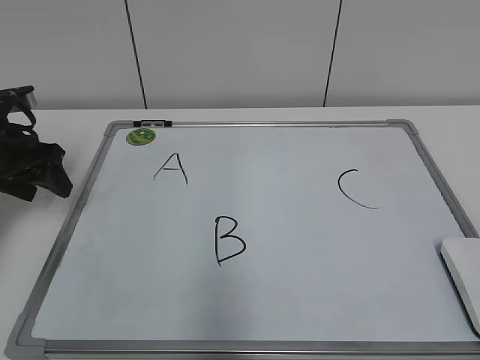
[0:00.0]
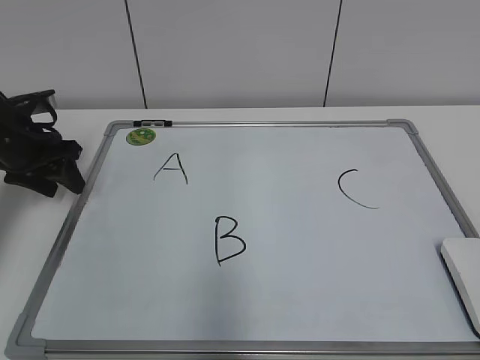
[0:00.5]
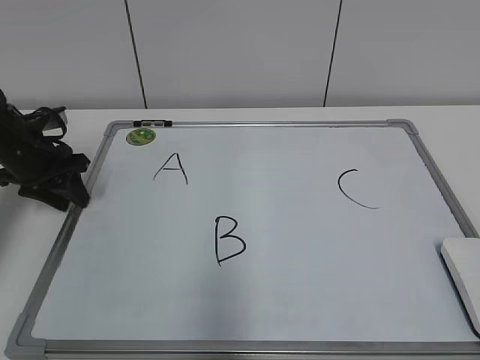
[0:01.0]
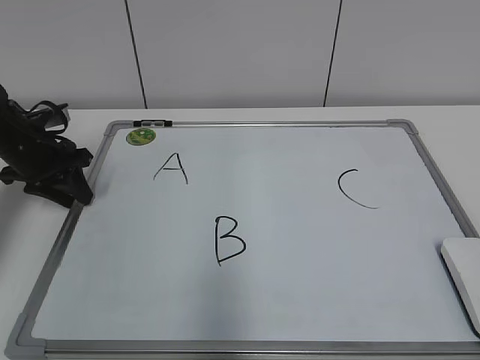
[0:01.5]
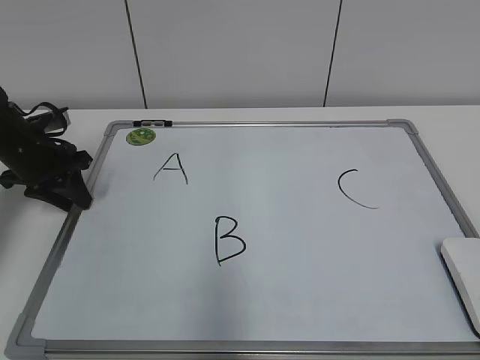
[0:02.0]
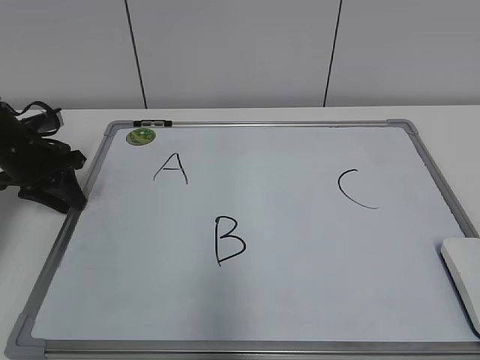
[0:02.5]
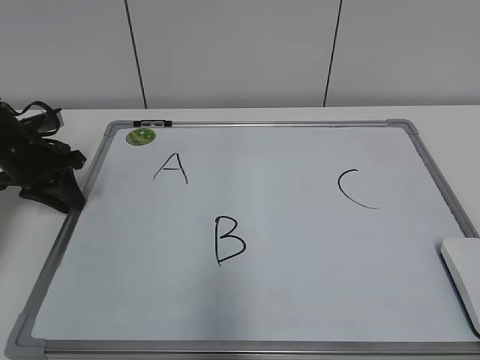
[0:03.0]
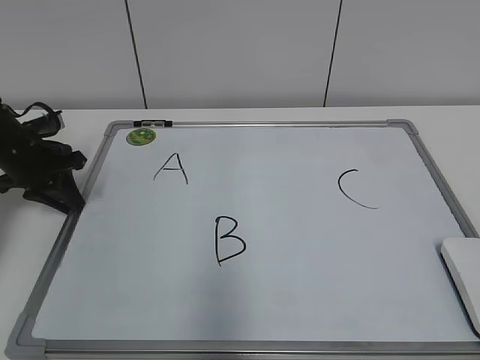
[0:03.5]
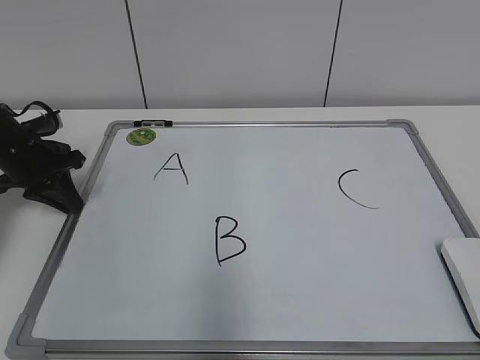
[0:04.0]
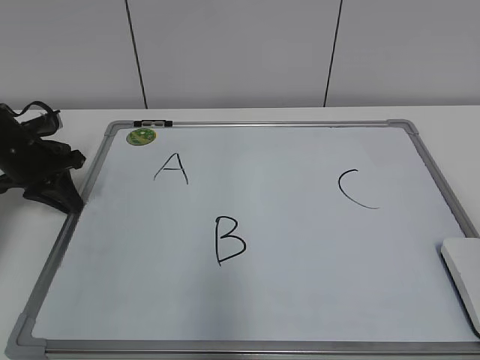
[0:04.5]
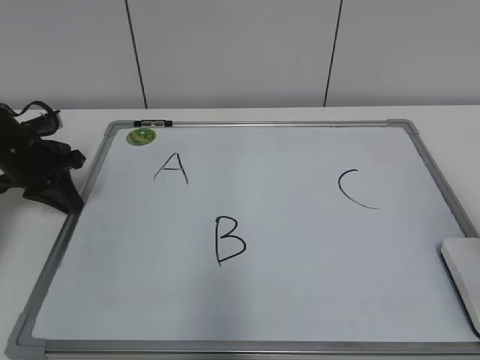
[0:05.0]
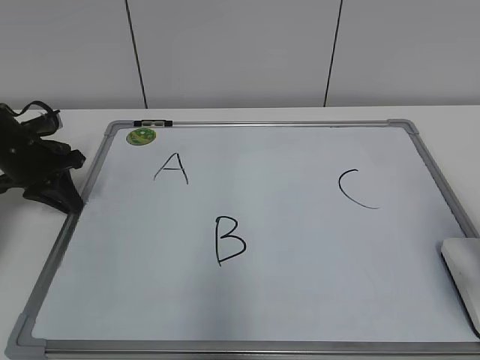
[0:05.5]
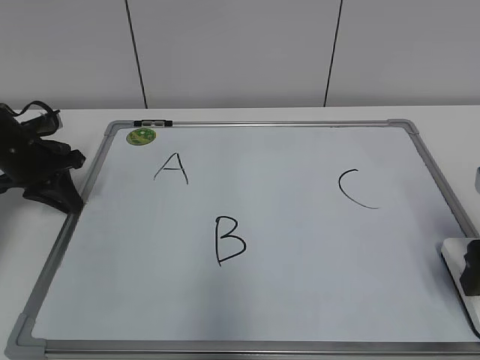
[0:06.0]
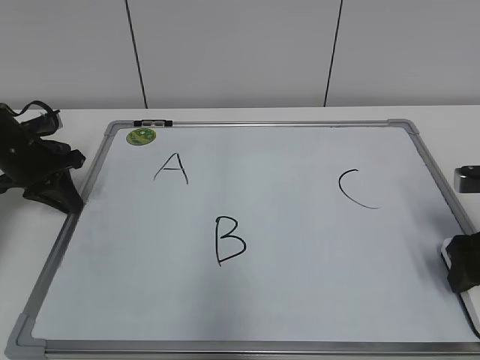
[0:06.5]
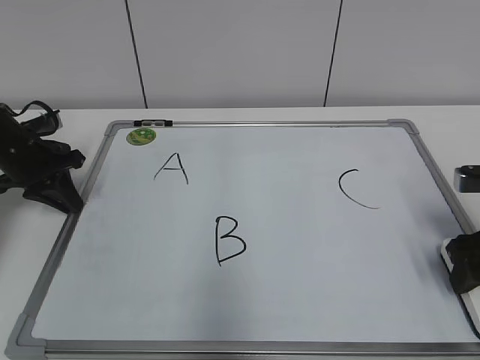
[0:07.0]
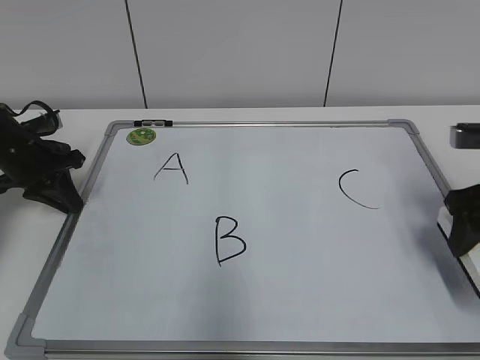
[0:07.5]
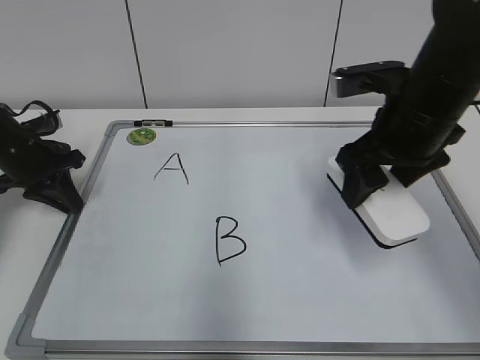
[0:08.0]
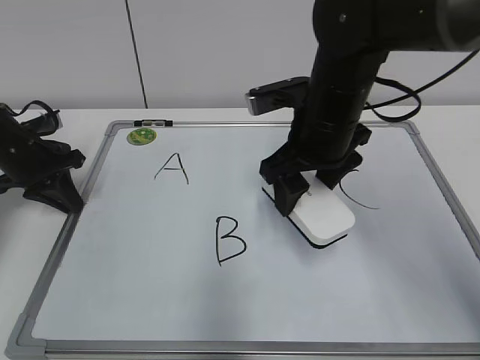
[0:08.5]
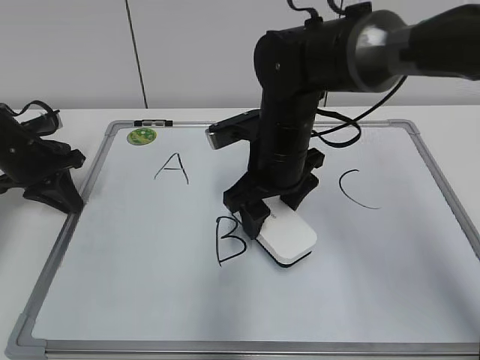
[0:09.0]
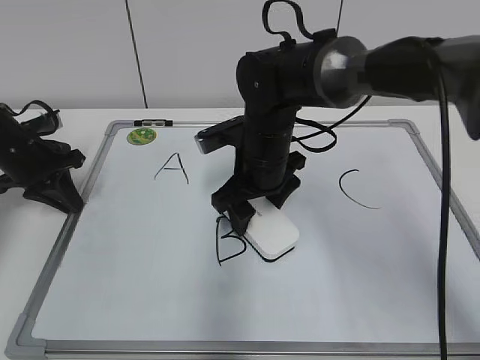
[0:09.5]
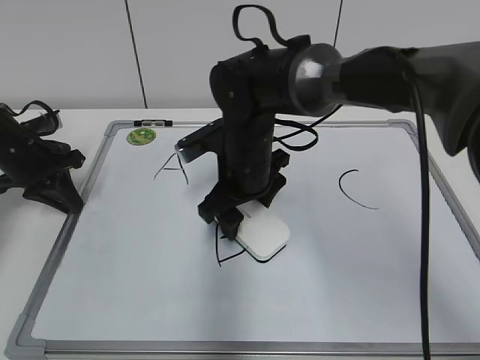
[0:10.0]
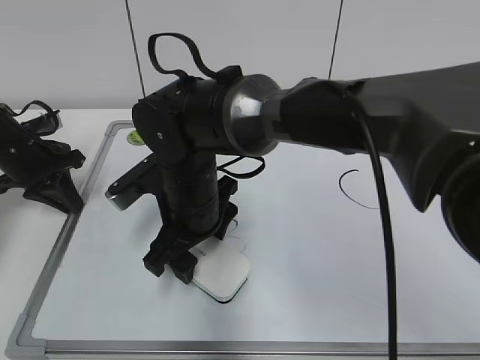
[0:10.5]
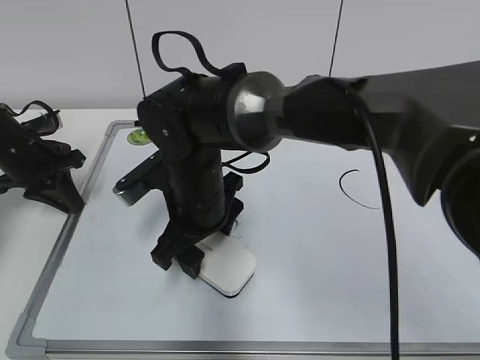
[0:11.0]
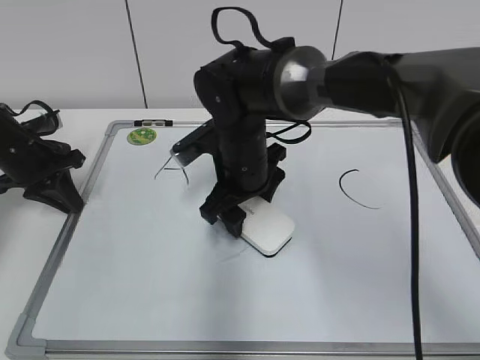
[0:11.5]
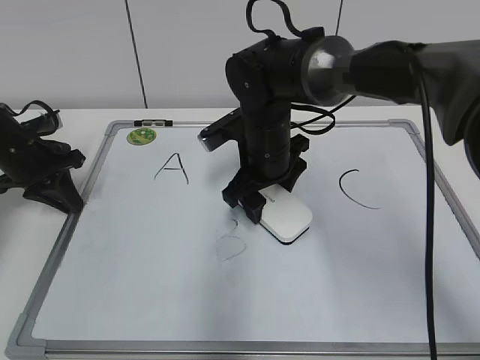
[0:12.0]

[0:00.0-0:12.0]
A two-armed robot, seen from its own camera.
Task of the whole recording: pick up the eraser on the blackboard and erase the letter "B".
Step, 0:00.0 to 0:03.5: Hold the drawing board steady with your left hand.
Step, 0:04.0 to 0:06.5: Grab the eraser with your right hand.
0:00.0 to 0:02.0: The left gripper moves some 5 cm, and closes up.
0:02.0 to 0:04.0: Neither gripper changes place.
0:04.0 to 0:06.0: The right gripper shifts approximately 25 cm forward and downward, and opens its fingers.
0:06.0 to 0:08.0: The right gripper goes approximately 15 cm to the left, forward and upward, and closes.
0:08.0 to 0:10.0: The right gripper is displaced to the left and downward by approximately 20 cm.
0:10.0 to 0:12.0: The right gripper travels to the left and back again, about 5 cm each way.

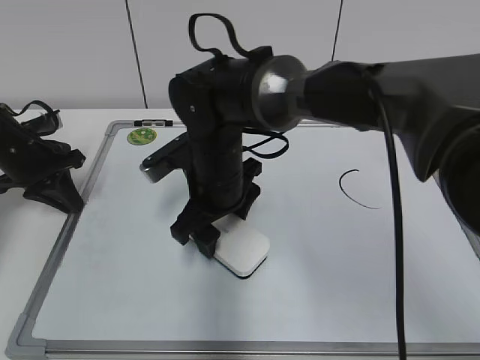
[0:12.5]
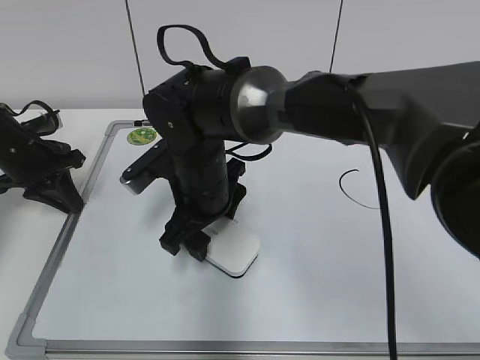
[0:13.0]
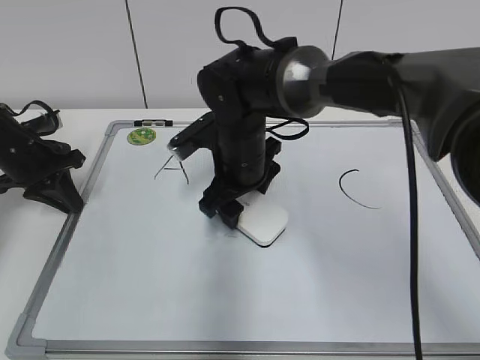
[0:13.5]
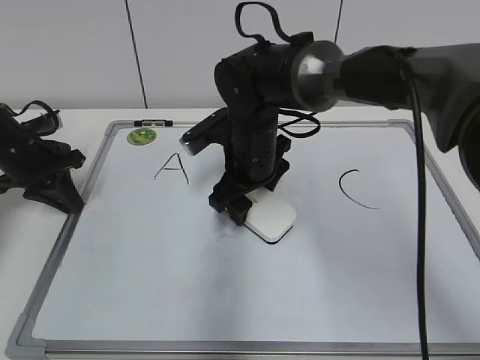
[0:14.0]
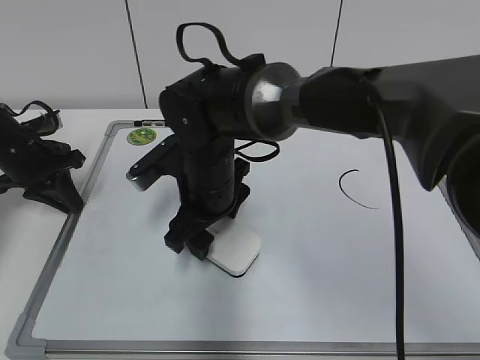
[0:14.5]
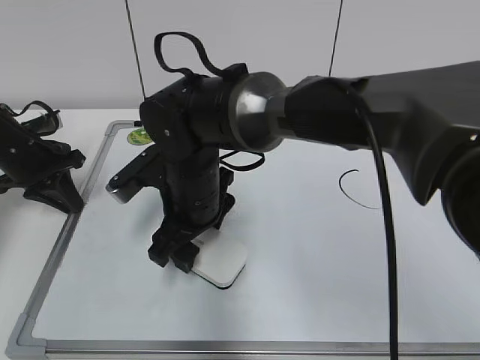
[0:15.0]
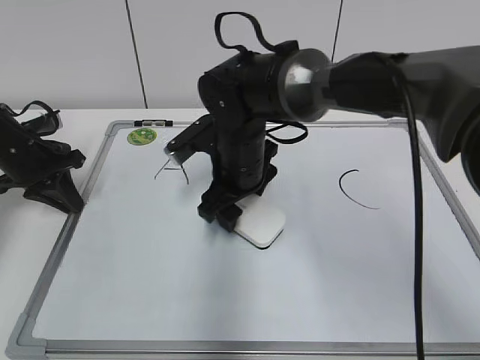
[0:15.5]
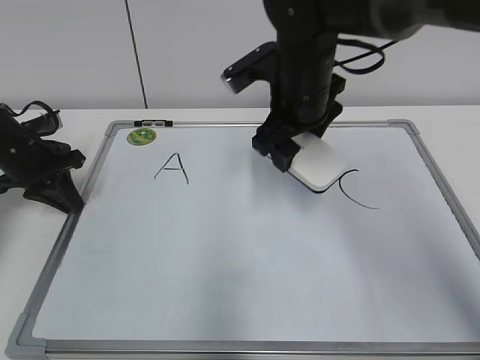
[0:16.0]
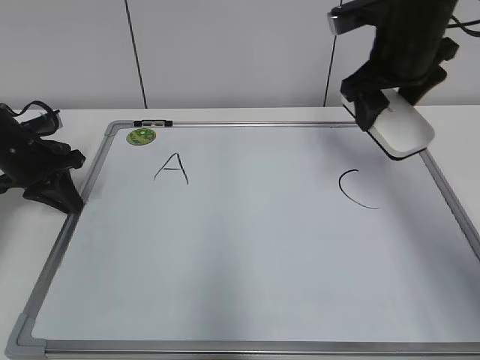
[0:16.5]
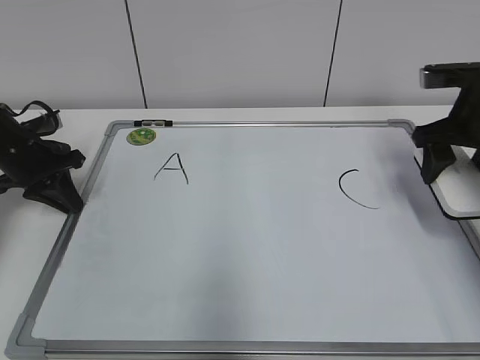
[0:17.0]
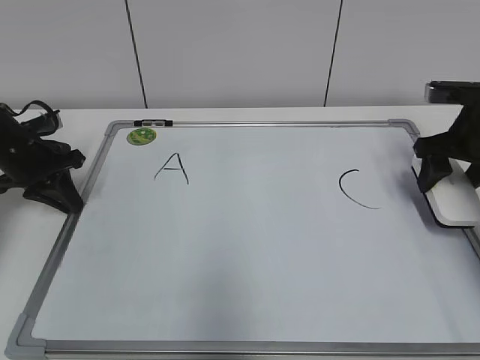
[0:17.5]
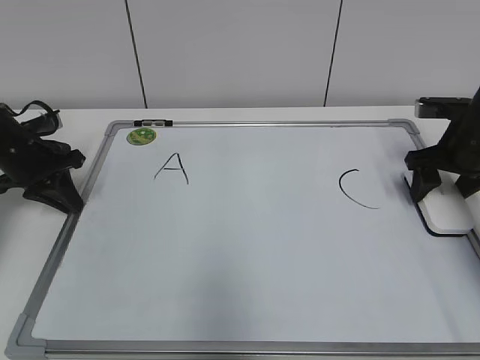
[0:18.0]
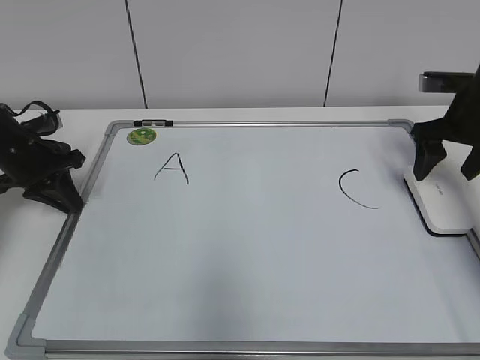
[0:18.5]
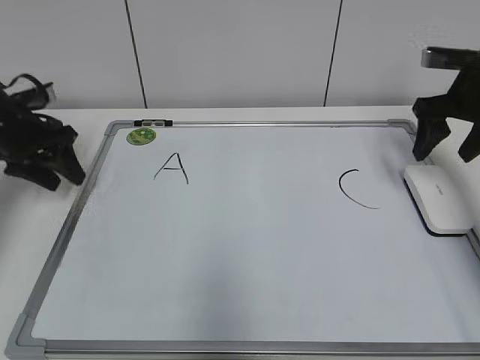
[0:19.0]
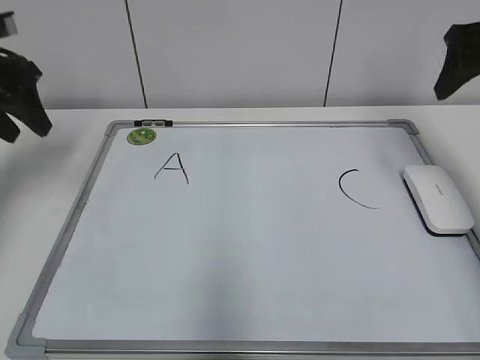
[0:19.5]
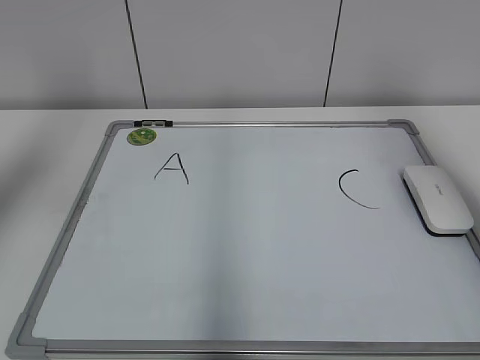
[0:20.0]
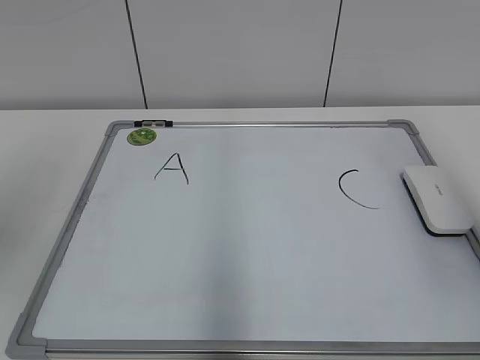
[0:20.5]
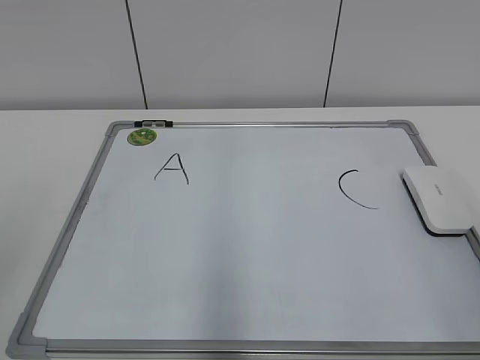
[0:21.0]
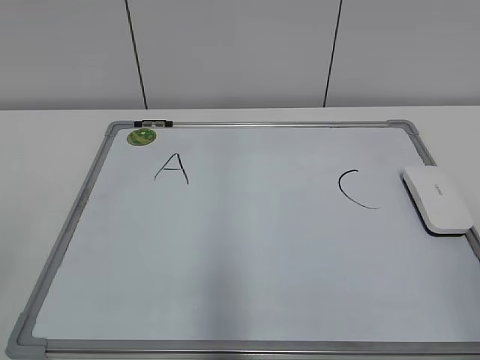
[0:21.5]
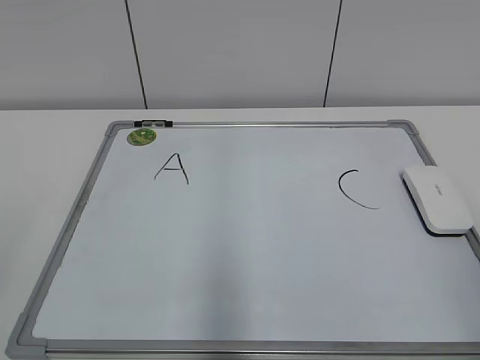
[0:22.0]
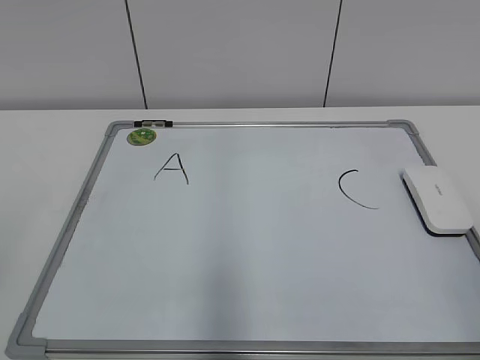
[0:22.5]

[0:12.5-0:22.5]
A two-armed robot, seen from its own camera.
Task of the whole recording: pick up the eraser on the blackboard and erase the letter "B".
Step, 0:12.5 to 0:15.5: Erase the letter B with your right hand.
Step, 0:16.0 to 0:18.0: Put down the eraser with your right hand.
0:14.5 to 0:16.5: The right gripper moves to the right and upward, approximately 25 cm.
0:16.5 to 0:18.5: The right gripper heads to the right and downward, covering roughly 15 cm, and opens up.
0:18.5 to 0:20.5: The right gripper goes roughly 30 cm backward and upward. Meanwhile the left gripper moves upward and backward, roughly 35 cm, and opens.
0:20.5 to 0:22.5: The right gripper goes some 15 cm downward and backward.

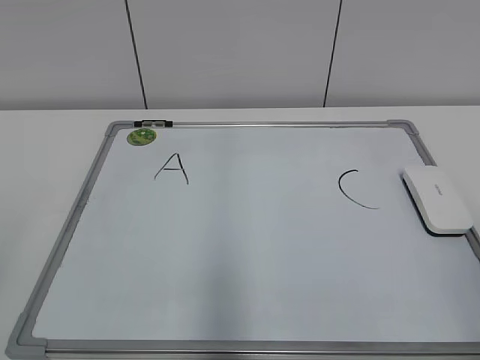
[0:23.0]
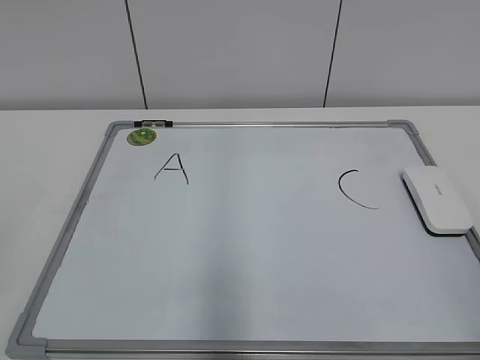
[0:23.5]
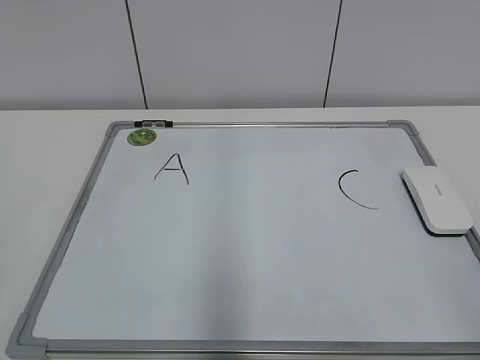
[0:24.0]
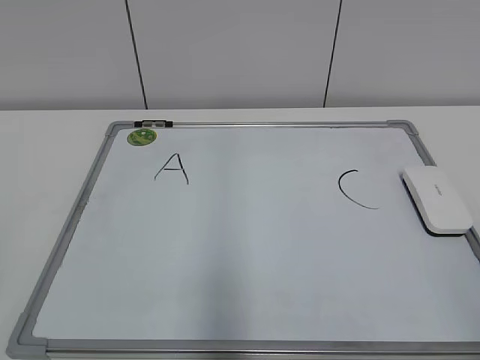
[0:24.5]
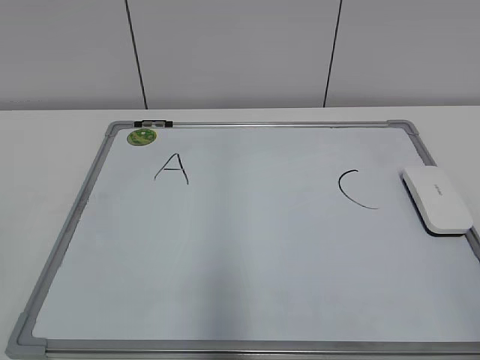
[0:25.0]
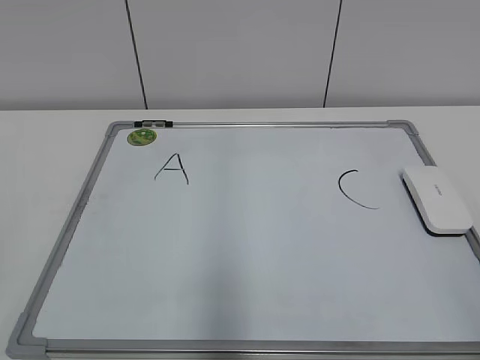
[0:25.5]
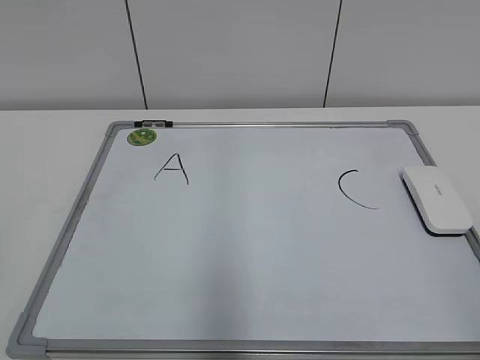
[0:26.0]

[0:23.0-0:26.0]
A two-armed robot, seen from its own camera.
Task of the whole recording: pick up the eraser on the blackboard and erase the letter "B".
0:24.5 to 0:26.0: Neither gripper changes place.
